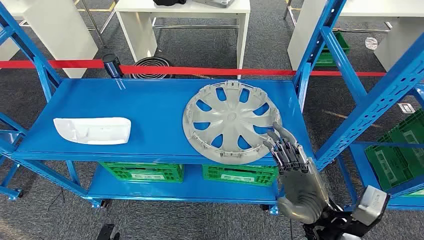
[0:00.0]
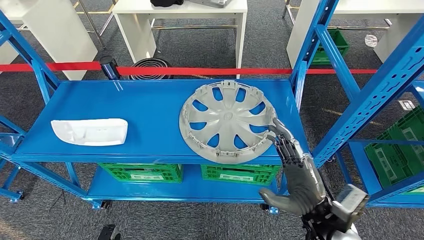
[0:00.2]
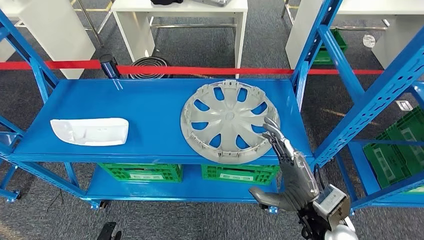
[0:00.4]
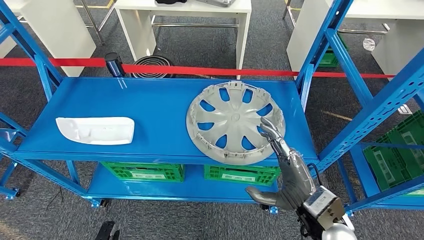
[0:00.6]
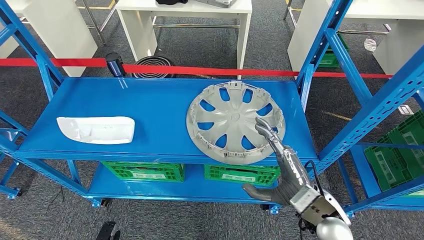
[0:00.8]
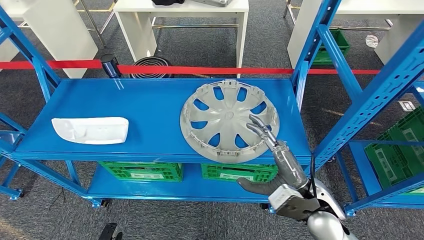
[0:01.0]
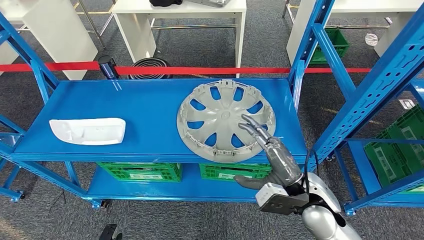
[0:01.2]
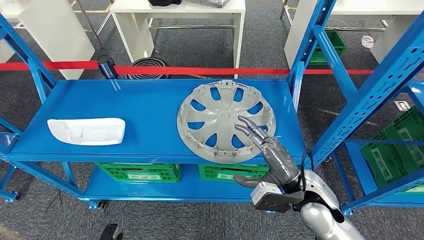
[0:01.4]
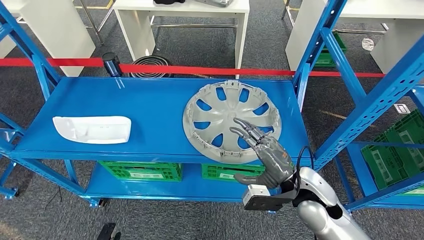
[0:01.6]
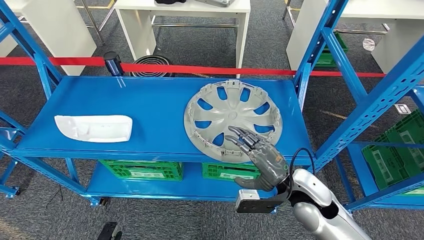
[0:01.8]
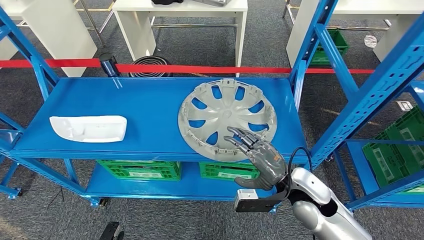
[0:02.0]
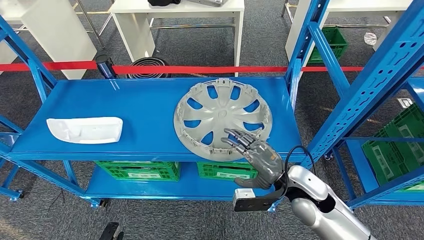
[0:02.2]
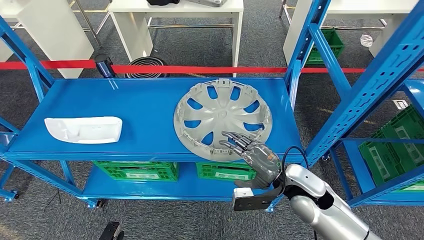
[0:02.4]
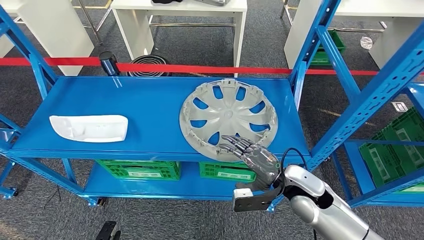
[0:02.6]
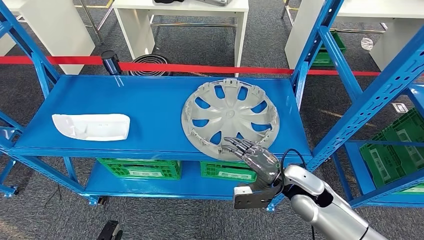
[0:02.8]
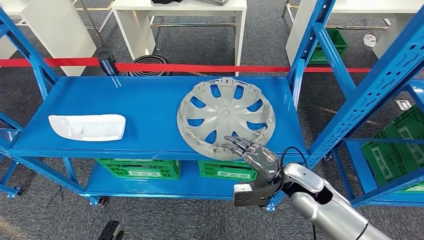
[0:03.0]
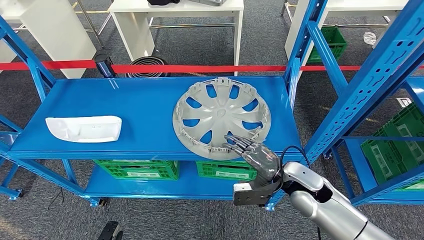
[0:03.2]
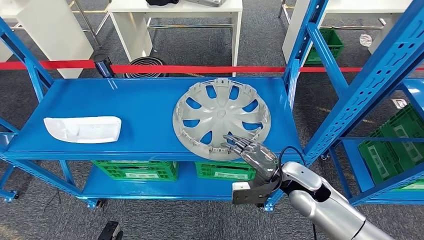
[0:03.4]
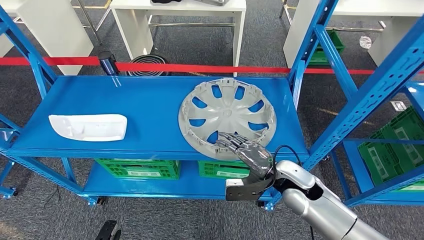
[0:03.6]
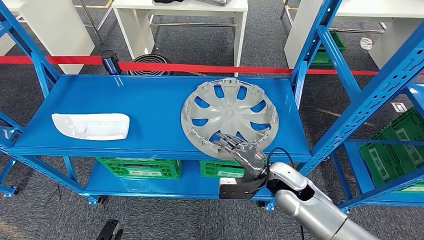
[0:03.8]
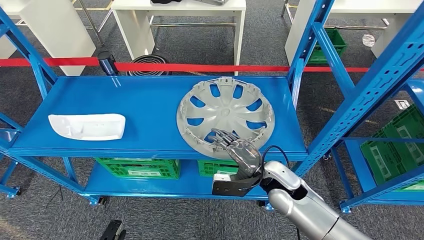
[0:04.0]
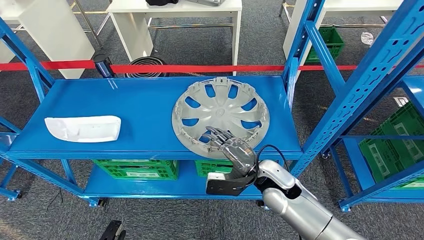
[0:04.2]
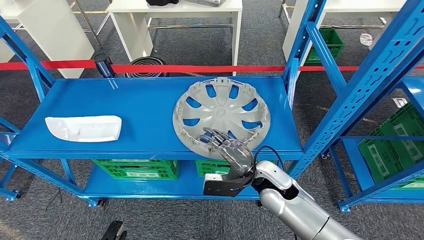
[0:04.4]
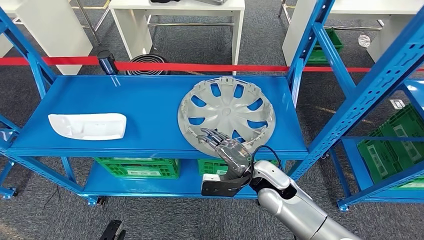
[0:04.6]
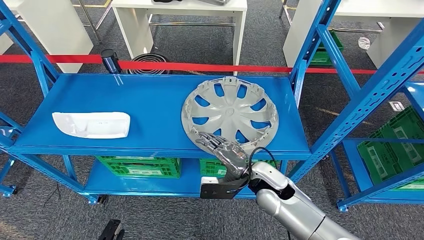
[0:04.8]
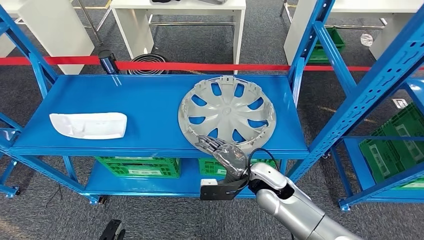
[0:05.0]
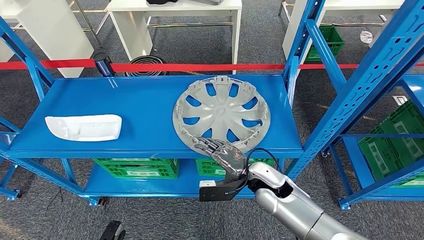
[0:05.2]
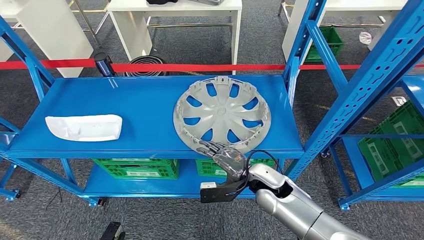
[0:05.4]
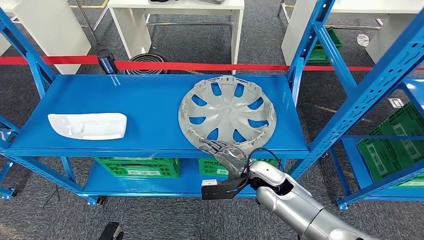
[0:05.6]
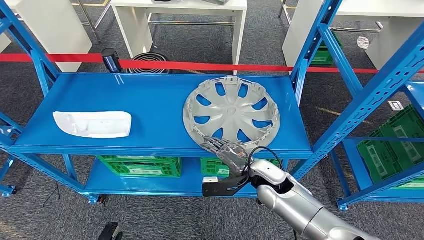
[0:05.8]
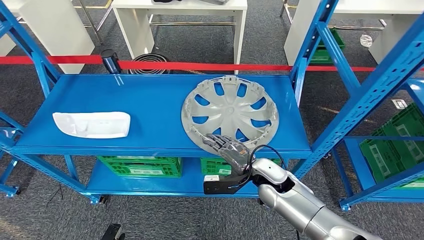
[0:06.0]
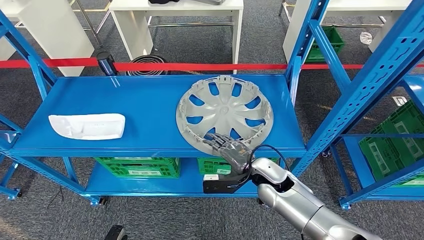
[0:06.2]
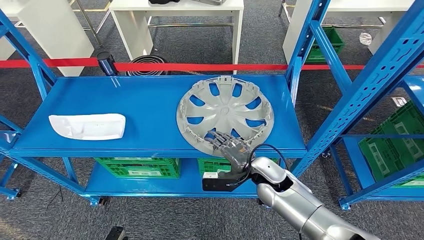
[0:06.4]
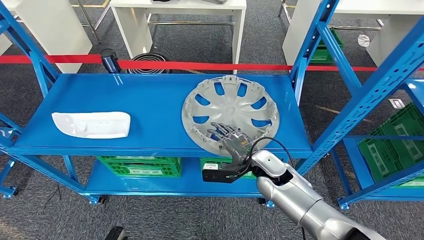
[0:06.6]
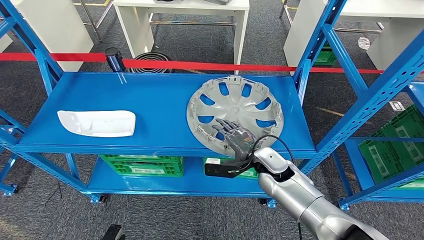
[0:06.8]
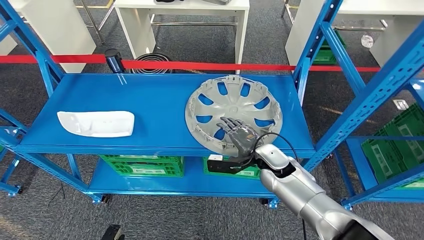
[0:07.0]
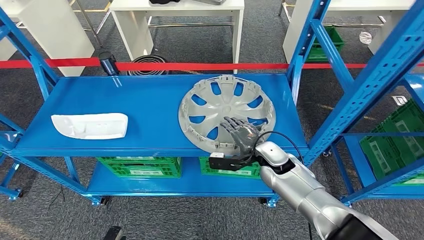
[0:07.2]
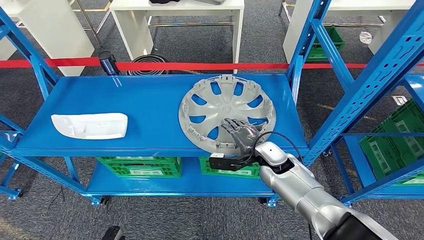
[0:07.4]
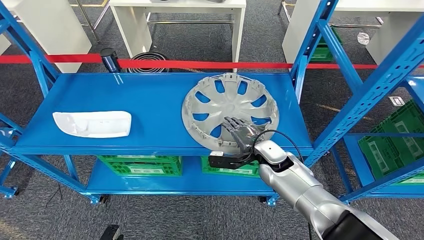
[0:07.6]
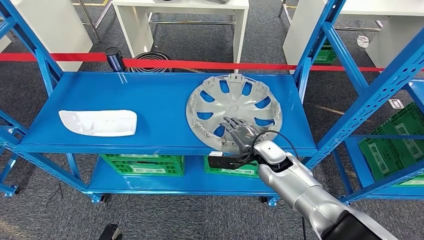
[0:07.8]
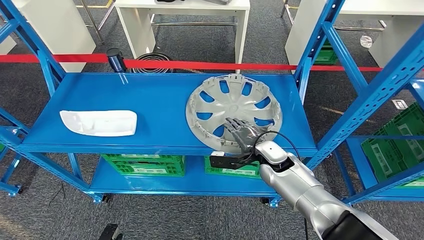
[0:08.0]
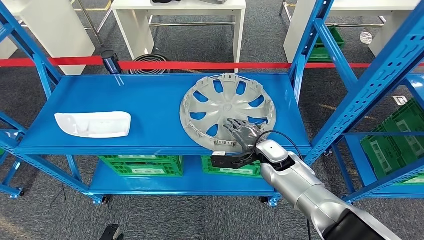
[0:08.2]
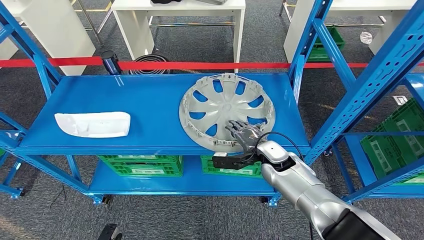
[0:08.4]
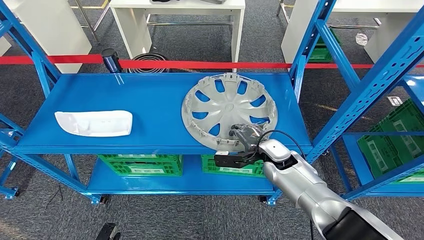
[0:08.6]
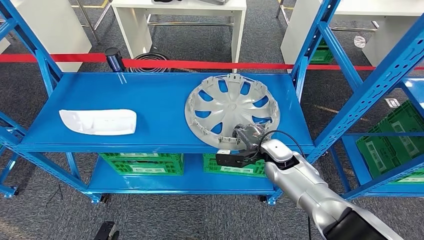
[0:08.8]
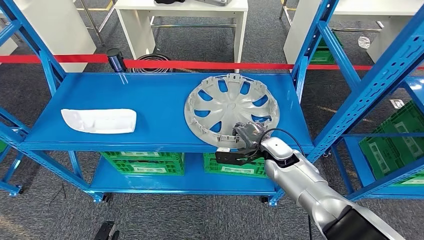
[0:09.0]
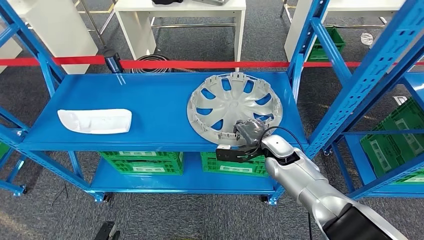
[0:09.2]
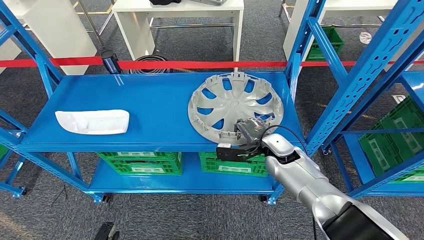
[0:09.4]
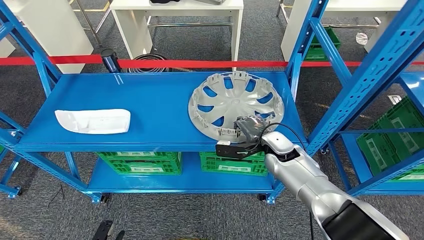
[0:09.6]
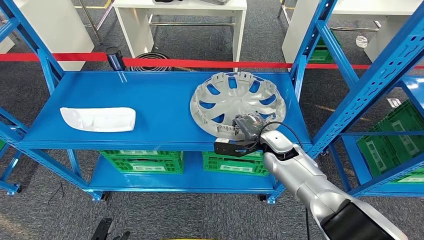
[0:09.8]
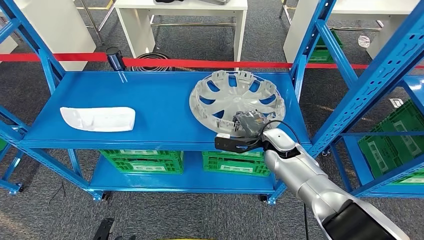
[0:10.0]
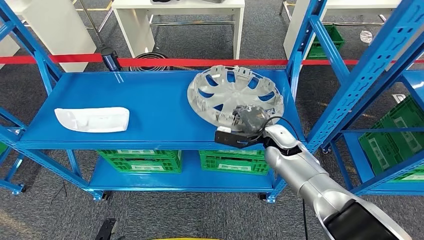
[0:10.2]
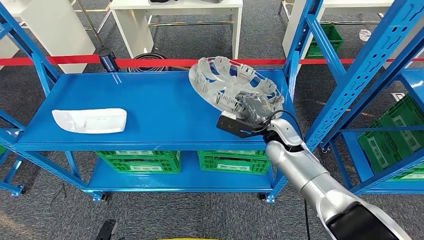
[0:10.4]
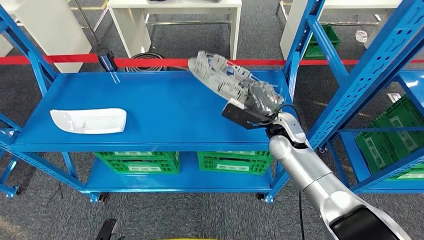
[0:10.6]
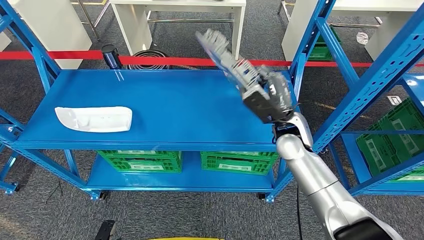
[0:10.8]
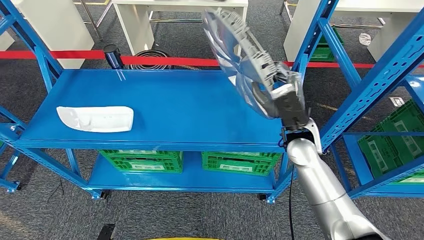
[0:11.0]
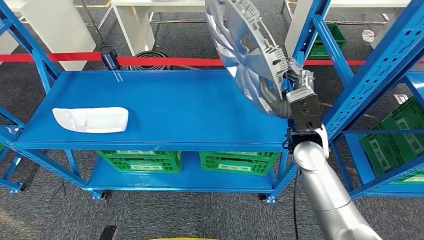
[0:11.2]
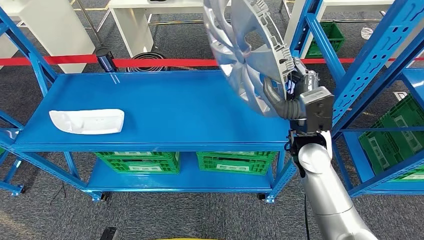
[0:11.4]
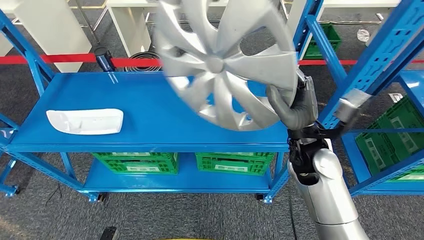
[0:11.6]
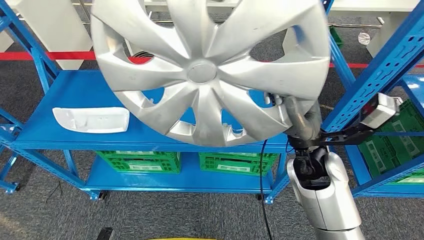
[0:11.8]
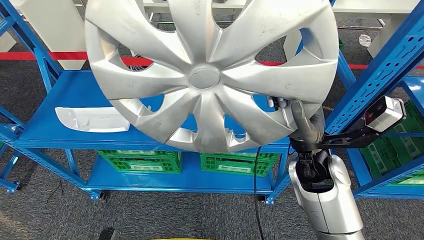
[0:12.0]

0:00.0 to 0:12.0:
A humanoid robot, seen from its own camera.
0:06.0 to 0:07.6: The right hand shifts approximately 5 cm forward.

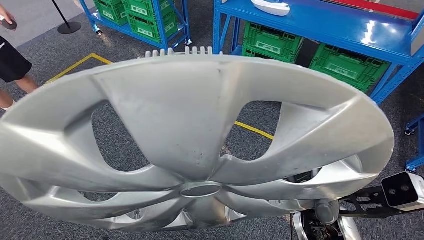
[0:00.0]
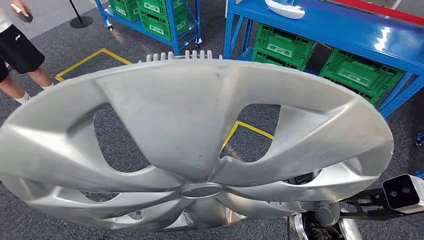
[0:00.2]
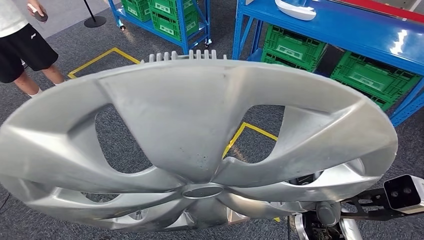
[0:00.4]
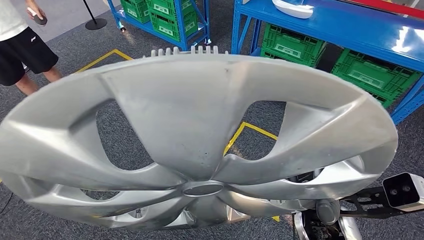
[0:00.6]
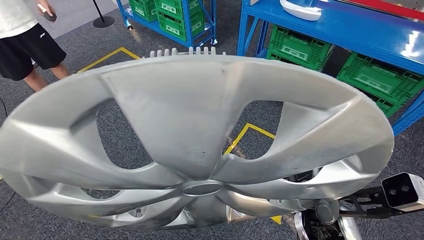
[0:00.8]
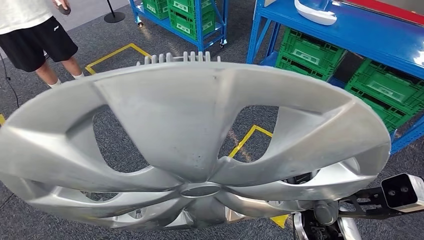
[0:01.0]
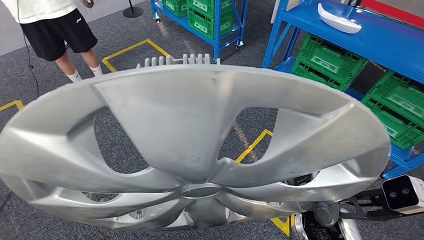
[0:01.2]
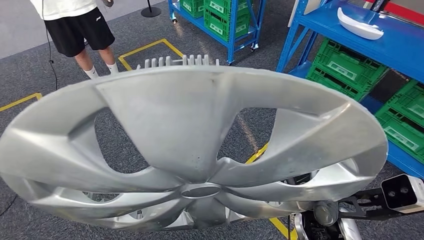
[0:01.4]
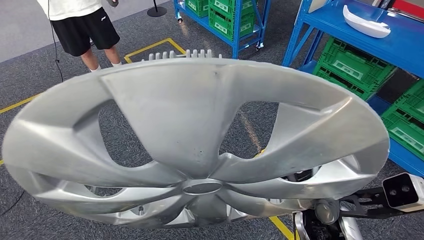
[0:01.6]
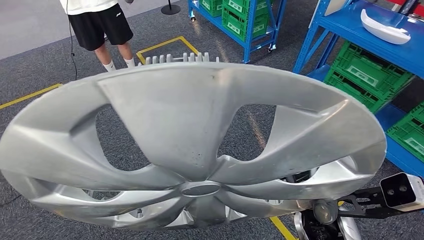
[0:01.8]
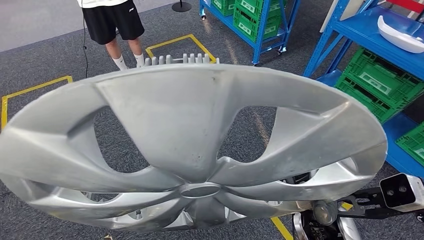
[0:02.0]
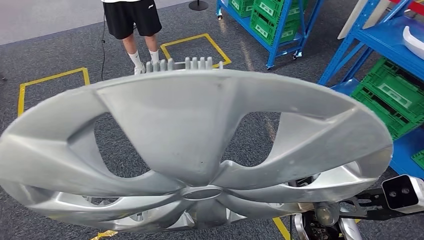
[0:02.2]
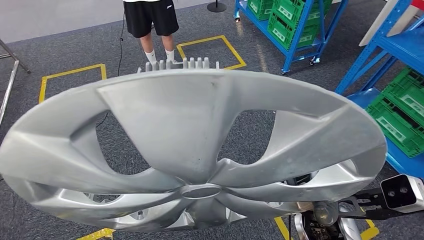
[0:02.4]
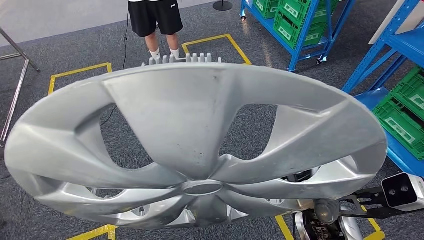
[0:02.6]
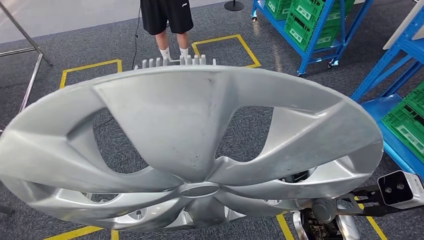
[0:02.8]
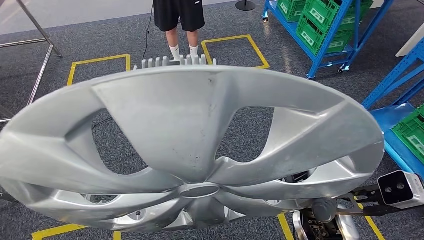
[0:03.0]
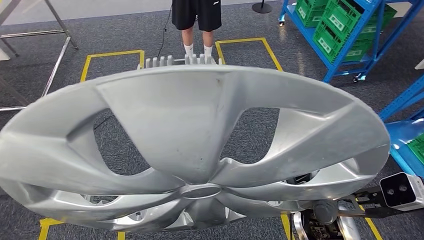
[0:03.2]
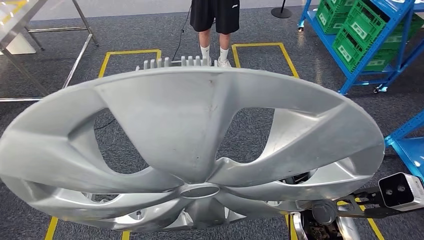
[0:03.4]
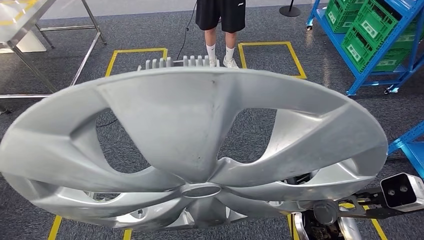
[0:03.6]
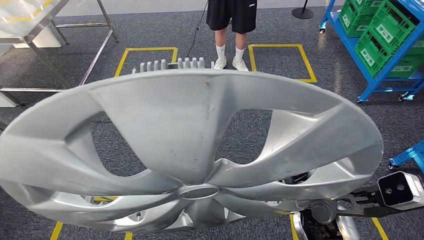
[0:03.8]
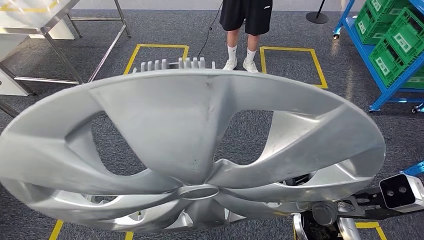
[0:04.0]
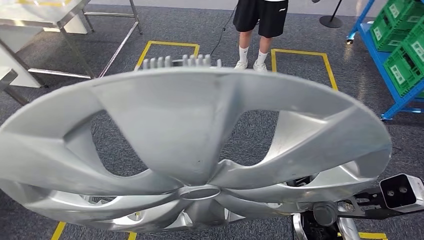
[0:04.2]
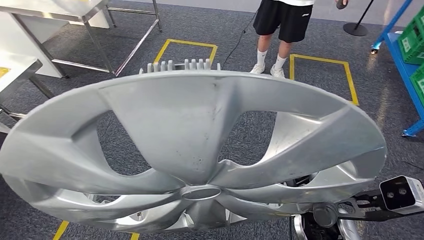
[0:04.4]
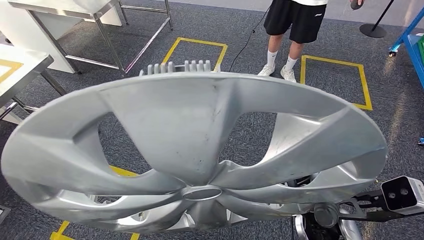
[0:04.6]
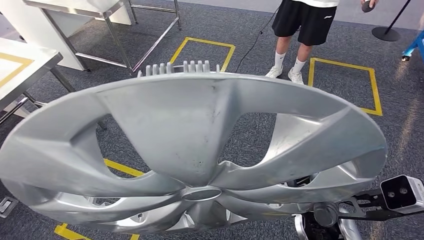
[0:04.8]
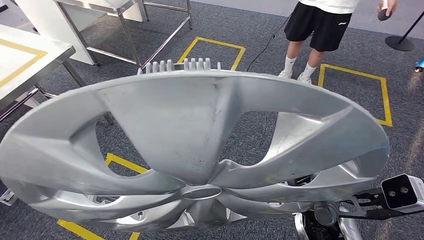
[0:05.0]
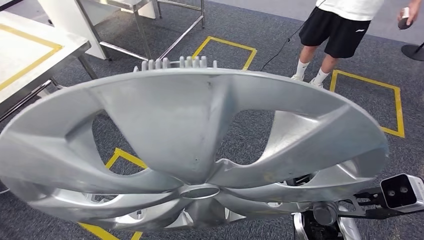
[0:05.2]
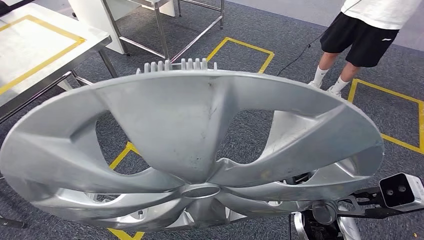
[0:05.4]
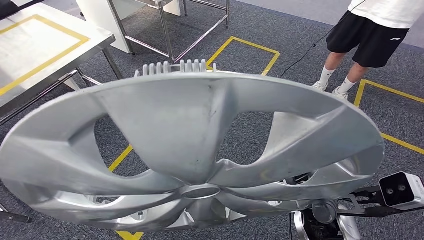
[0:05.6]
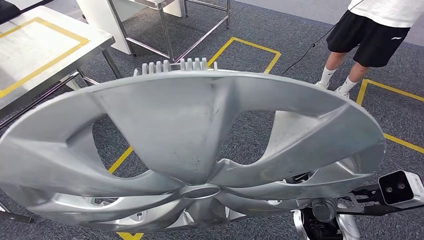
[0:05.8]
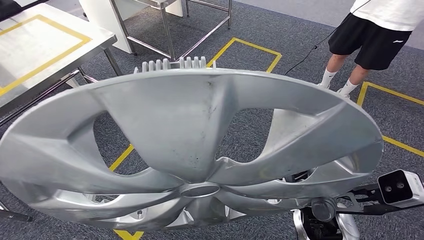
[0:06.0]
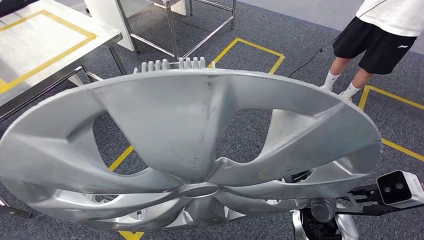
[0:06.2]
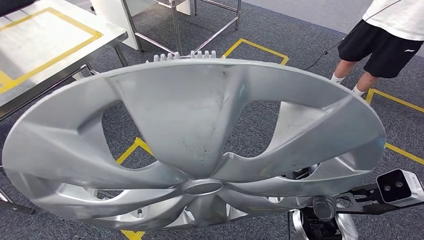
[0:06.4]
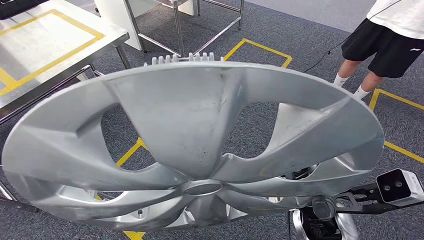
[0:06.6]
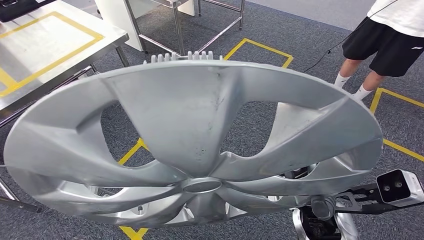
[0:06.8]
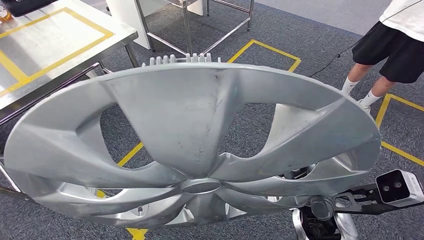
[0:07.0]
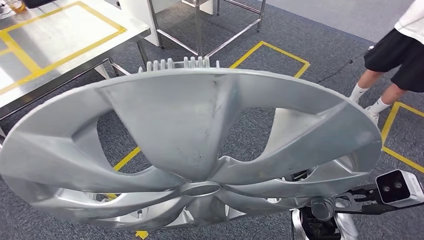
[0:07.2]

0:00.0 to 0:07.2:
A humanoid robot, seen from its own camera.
Step, 0:00.0 to 0:05.6: Move the small parts to the workbench.
